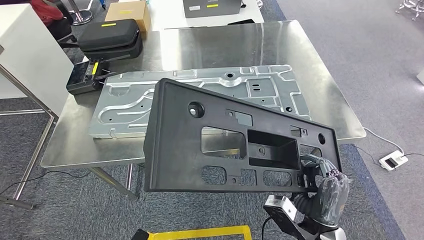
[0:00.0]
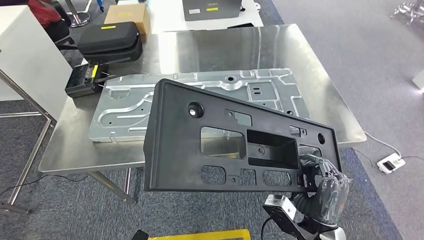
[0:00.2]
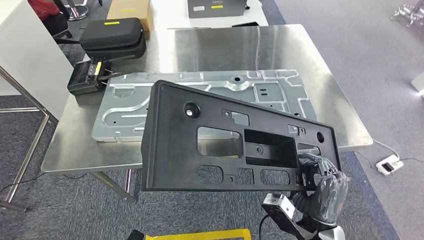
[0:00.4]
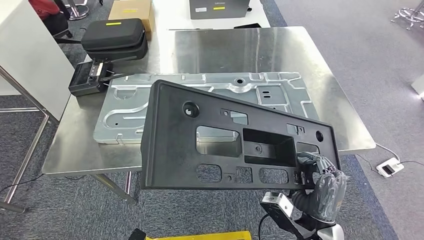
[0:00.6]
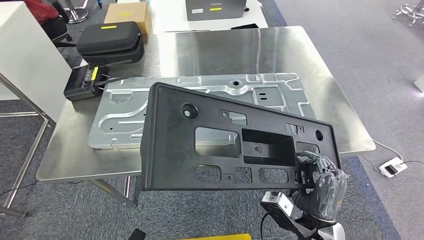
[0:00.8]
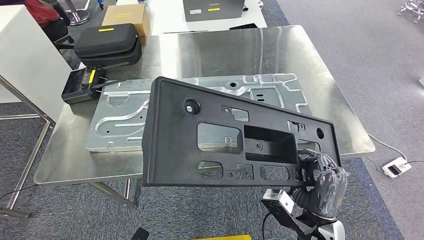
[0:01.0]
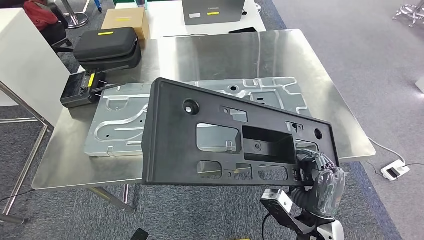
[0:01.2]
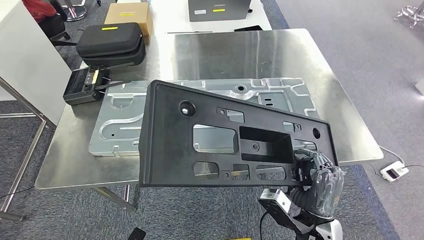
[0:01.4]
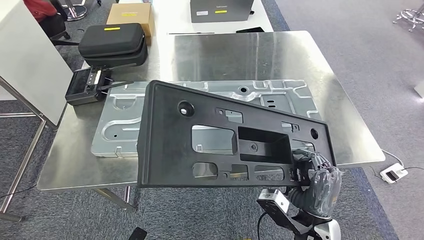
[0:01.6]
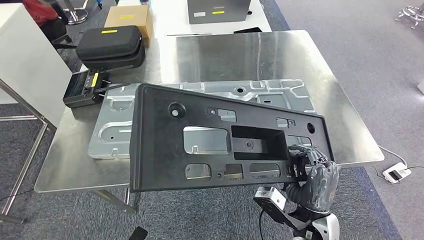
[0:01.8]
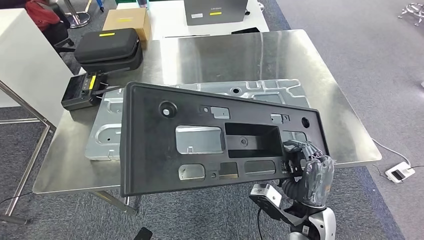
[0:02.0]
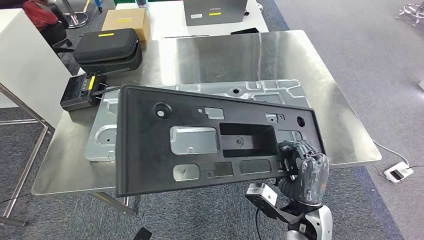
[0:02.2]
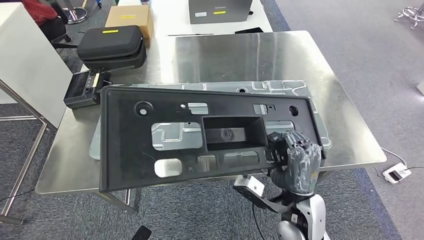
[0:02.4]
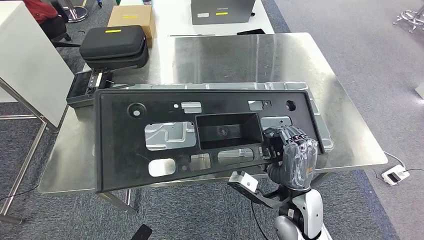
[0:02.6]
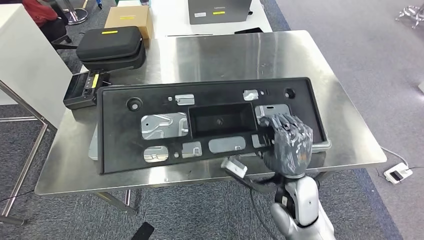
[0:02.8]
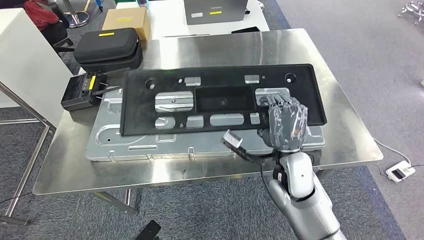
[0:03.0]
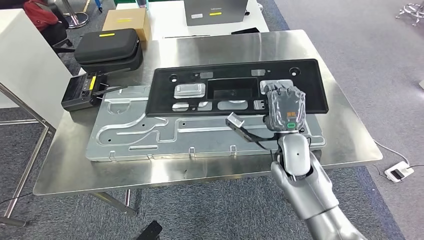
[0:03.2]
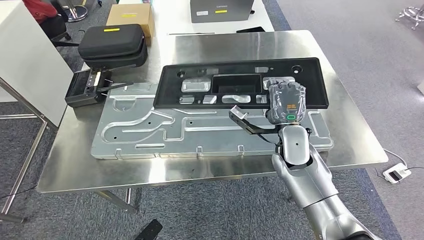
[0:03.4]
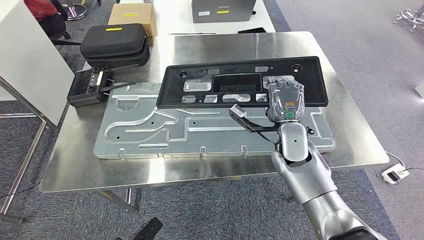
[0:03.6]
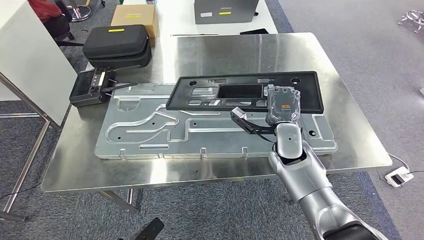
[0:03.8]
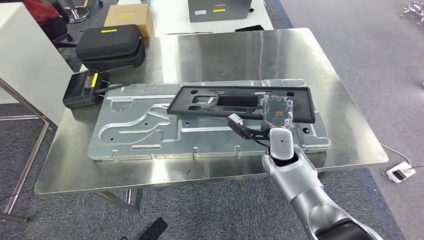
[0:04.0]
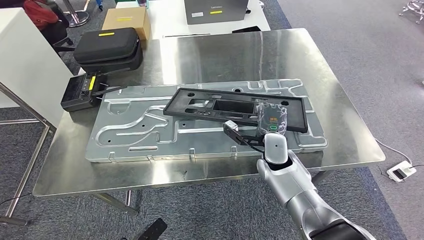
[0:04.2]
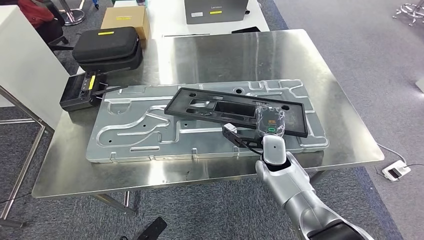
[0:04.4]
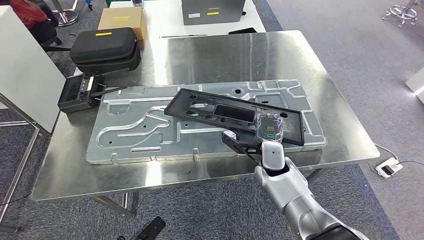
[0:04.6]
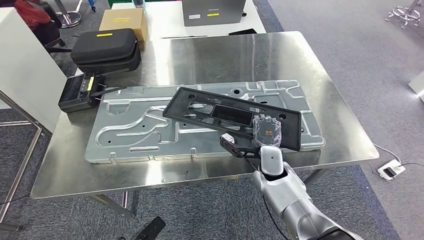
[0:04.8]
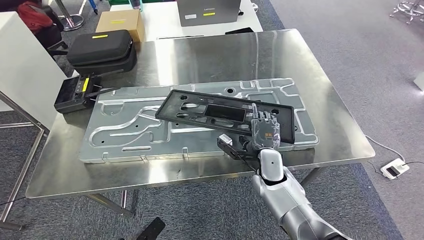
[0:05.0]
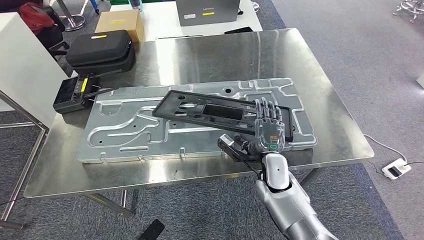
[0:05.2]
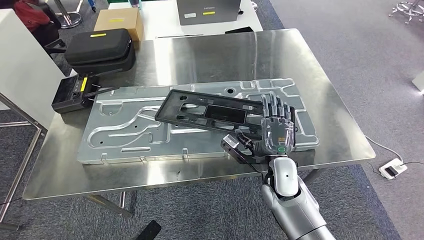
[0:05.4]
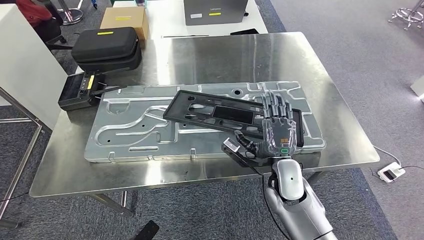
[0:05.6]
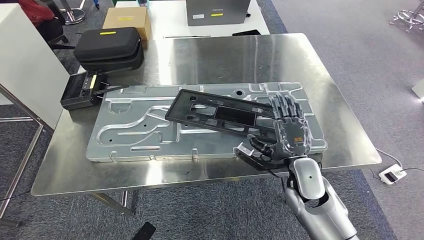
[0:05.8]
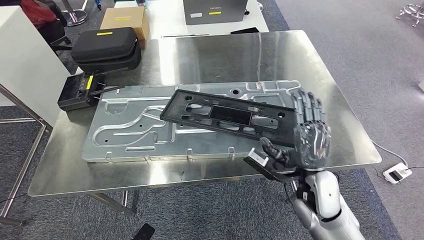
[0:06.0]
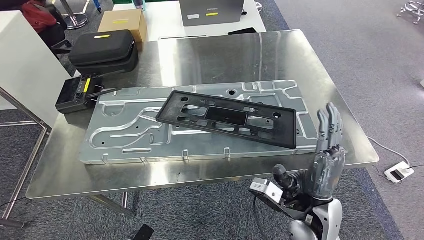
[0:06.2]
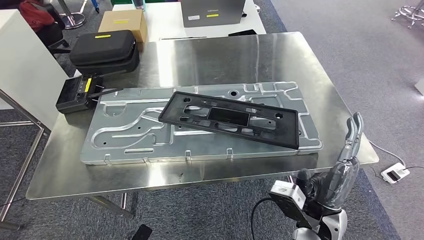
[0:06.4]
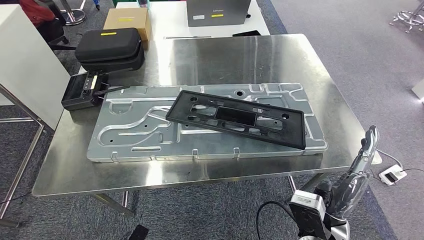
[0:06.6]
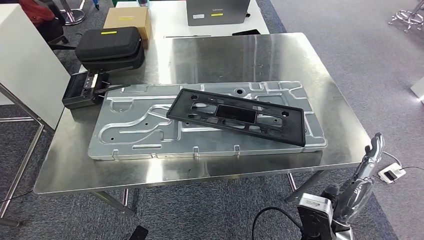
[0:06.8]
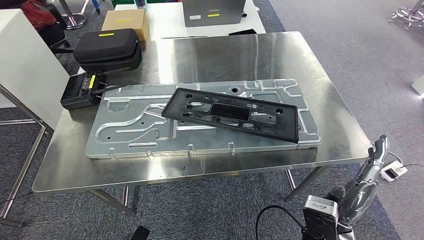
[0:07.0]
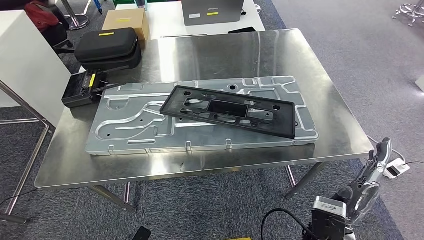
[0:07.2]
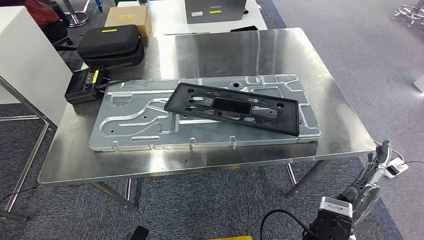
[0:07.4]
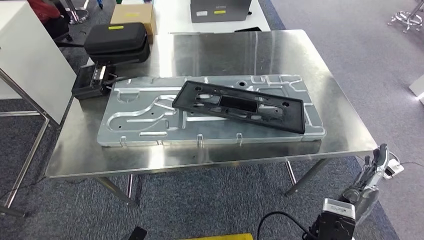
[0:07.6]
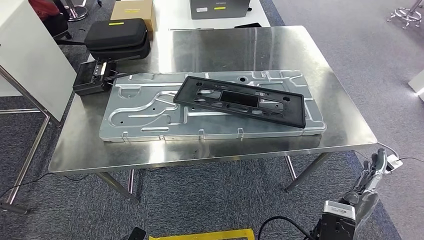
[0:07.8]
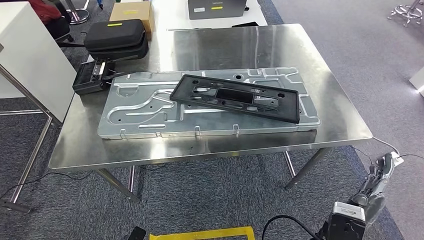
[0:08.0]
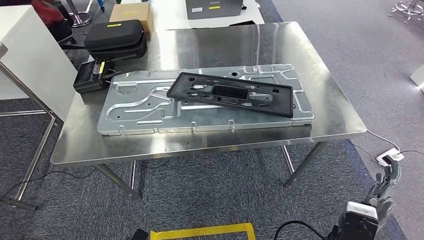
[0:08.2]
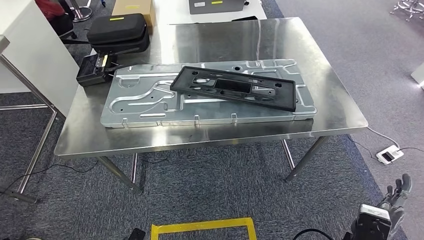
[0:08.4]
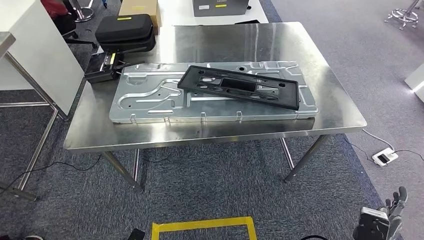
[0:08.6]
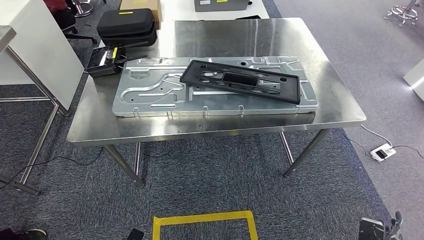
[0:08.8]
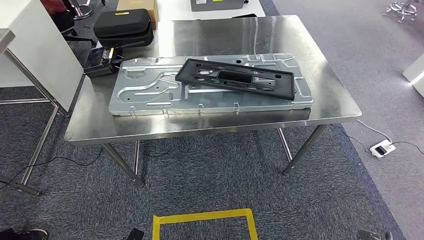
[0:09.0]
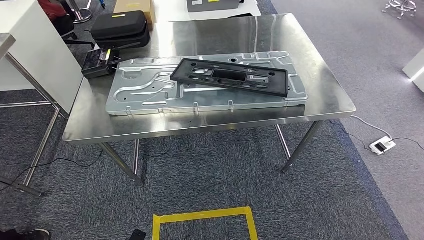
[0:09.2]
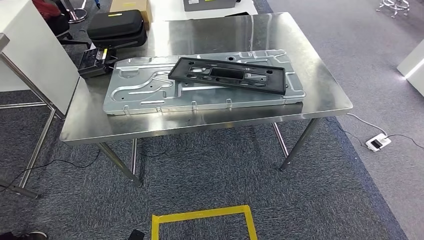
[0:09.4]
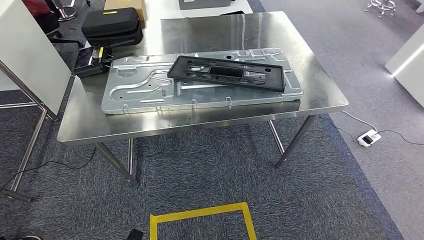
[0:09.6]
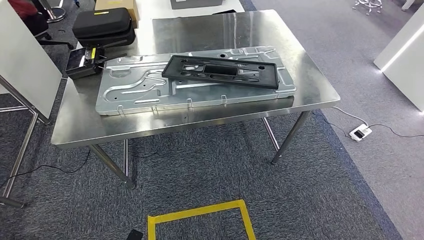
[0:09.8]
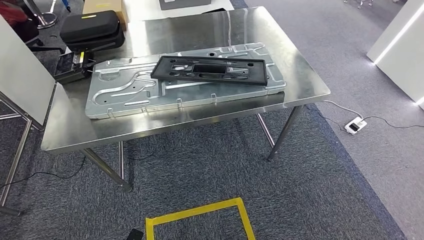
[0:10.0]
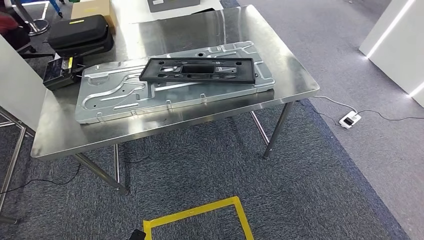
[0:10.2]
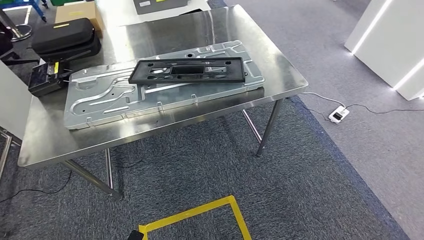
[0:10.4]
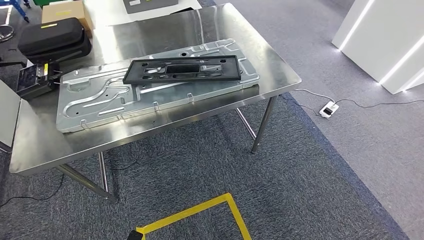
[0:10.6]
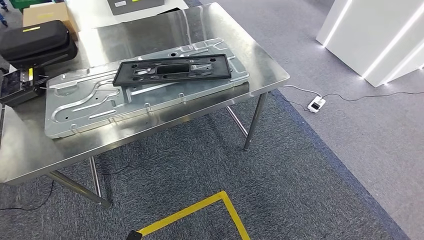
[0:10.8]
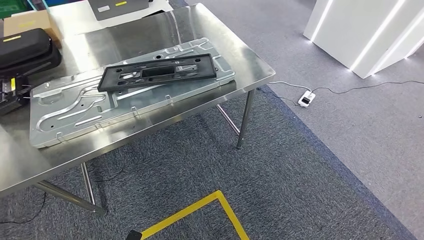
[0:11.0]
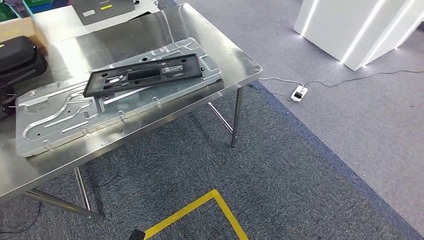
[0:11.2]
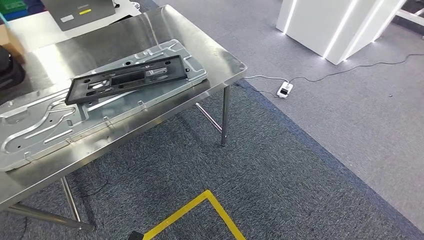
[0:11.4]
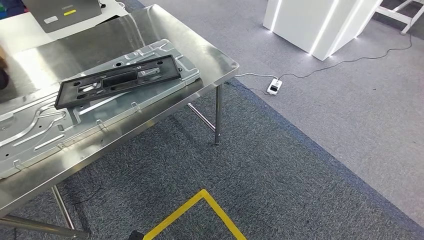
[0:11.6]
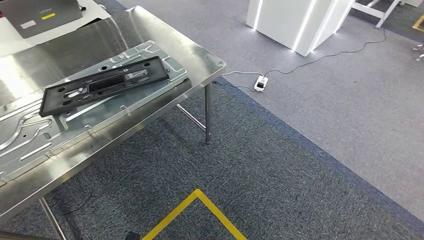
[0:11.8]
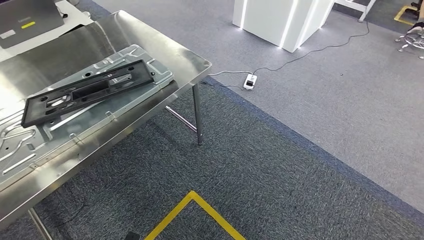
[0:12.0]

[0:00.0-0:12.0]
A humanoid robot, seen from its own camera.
Step, 0:00.0 to 0:07.0: Insert the large material into the corresponding slot on the workbench.
0:04.4 to 0:06.0: The right hand shifts some 10 cm backward and to the right.

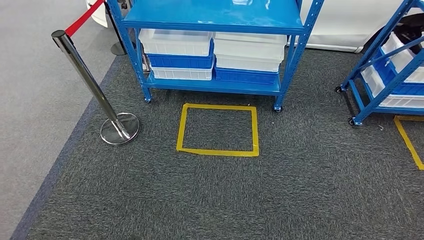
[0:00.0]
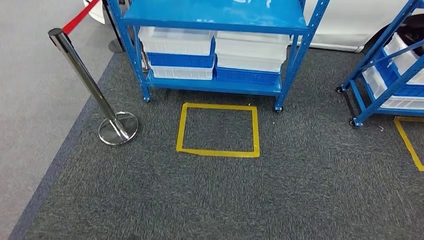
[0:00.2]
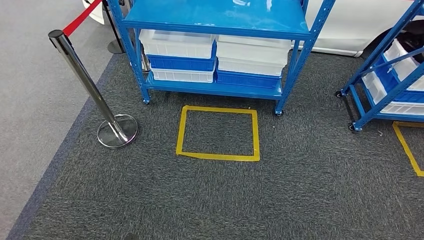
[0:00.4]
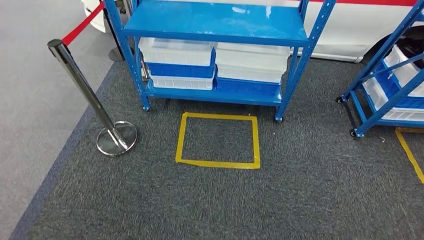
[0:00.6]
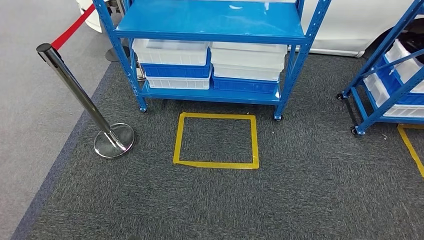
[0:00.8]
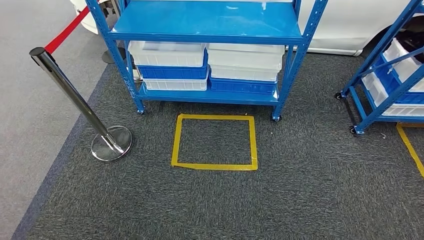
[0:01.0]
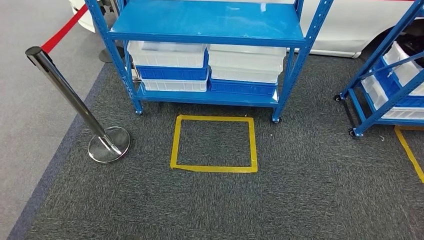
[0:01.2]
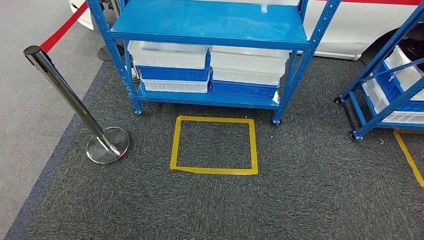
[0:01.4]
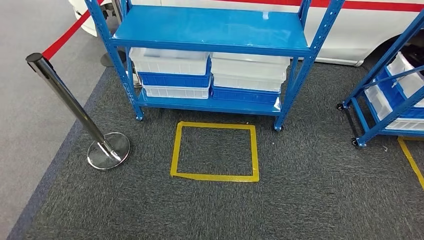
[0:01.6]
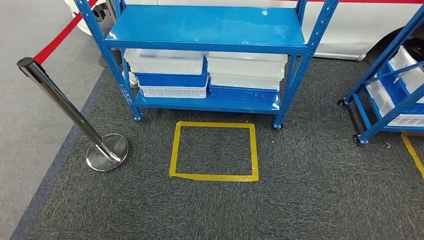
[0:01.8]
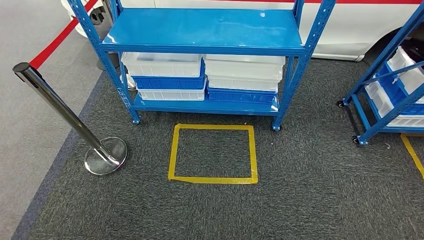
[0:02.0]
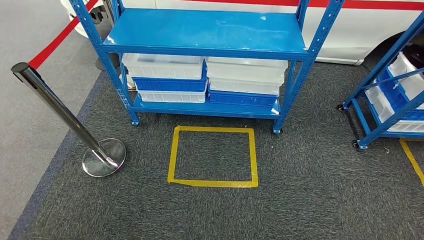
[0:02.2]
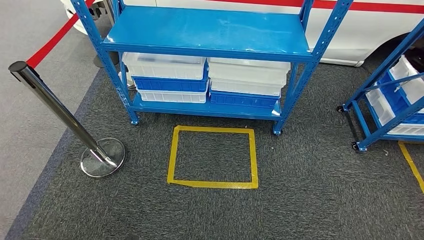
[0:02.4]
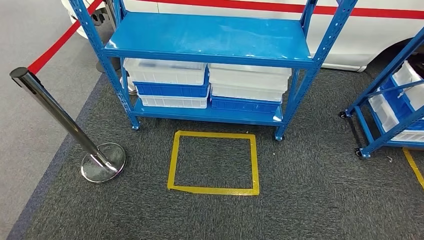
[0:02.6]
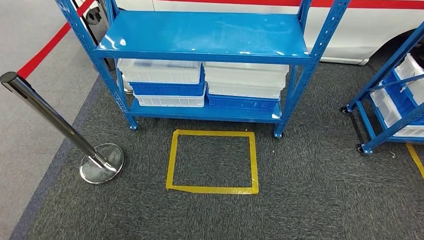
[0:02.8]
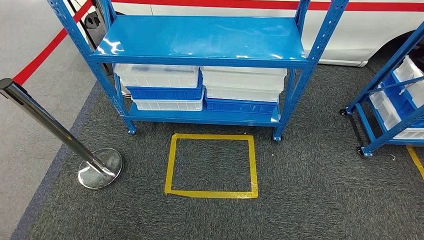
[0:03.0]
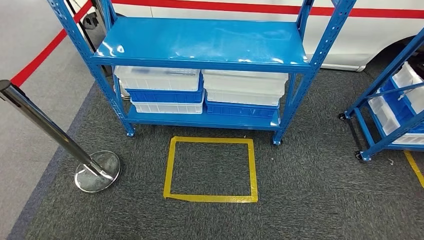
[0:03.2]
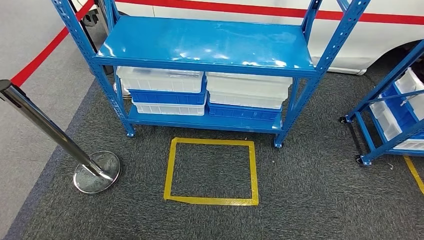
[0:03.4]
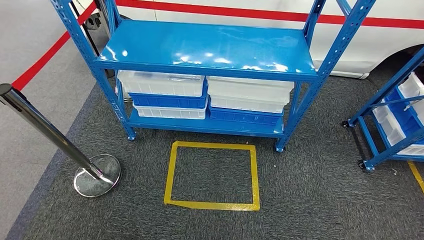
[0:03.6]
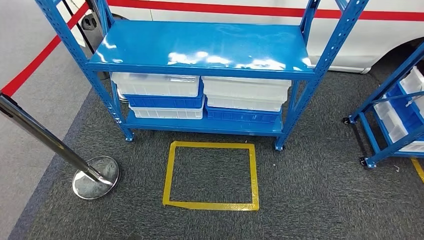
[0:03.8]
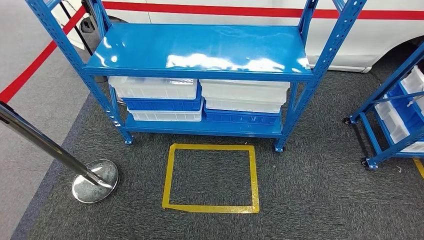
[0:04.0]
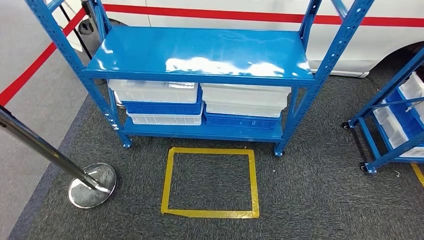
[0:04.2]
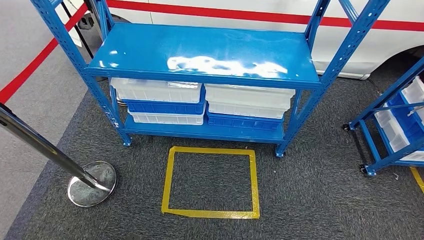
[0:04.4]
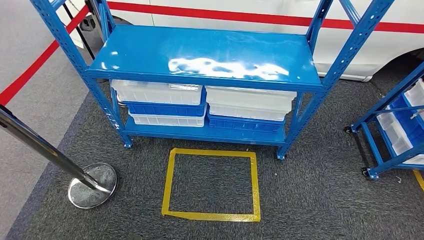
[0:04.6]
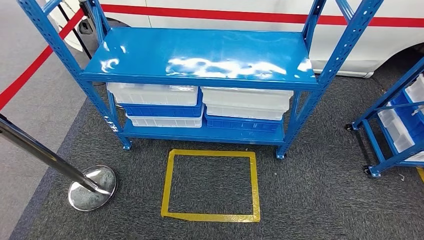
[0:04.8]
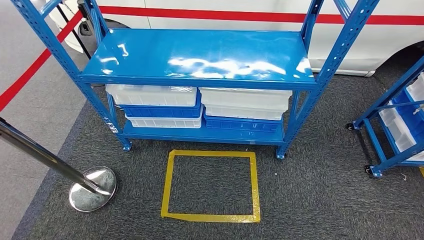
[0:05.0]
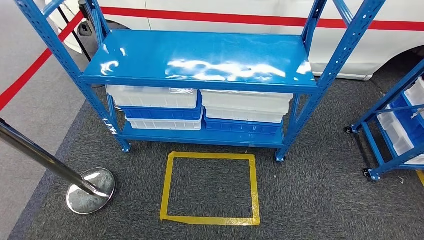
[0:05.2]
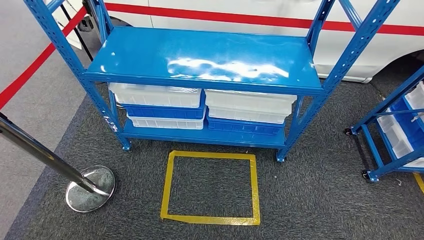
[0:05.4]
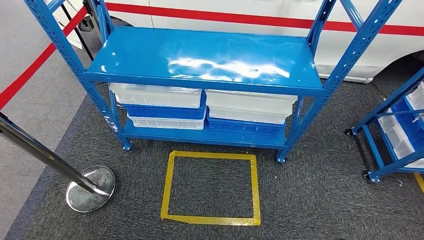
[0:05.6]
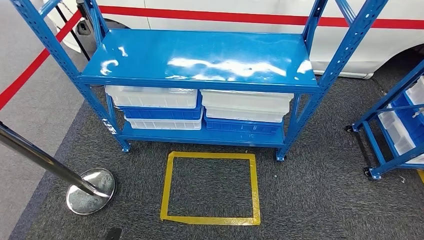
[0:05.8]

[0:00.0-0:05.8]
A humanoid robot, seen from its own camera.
Step, 0:00.0 to 0:05.8: Return to the initial position at the shelf.
